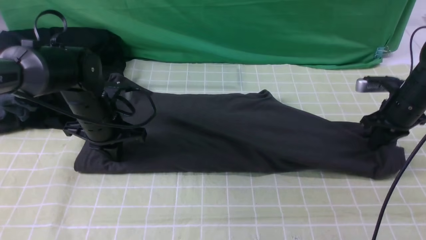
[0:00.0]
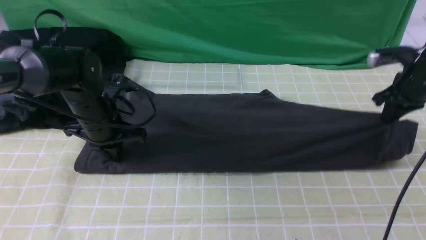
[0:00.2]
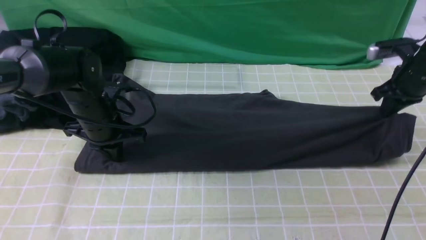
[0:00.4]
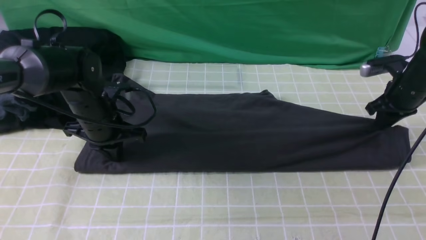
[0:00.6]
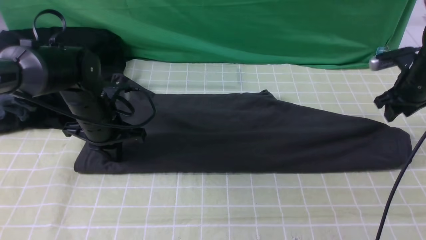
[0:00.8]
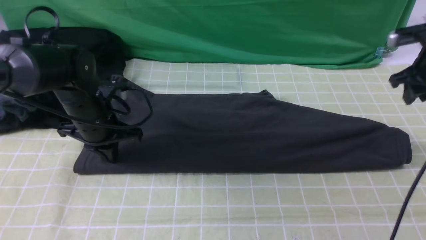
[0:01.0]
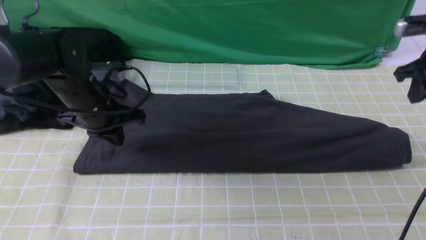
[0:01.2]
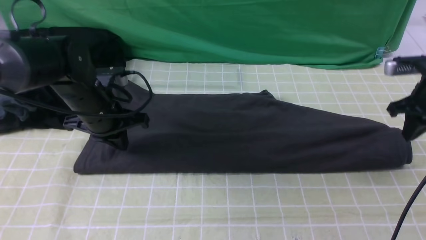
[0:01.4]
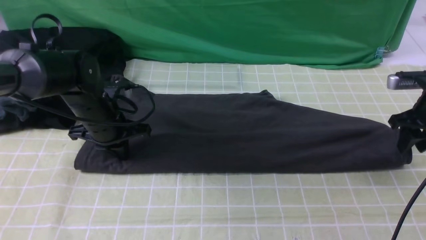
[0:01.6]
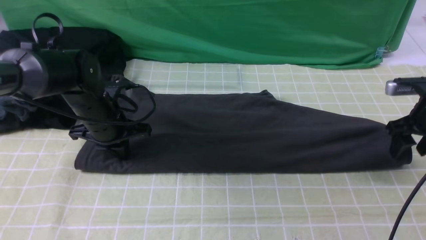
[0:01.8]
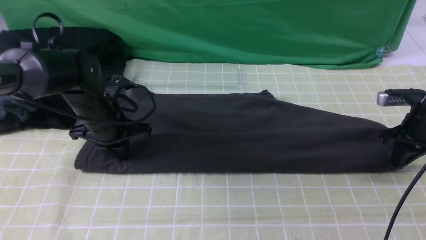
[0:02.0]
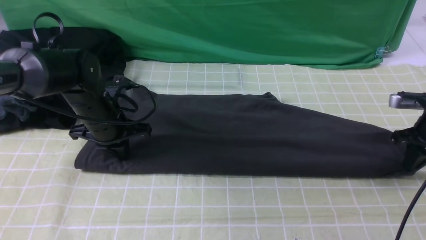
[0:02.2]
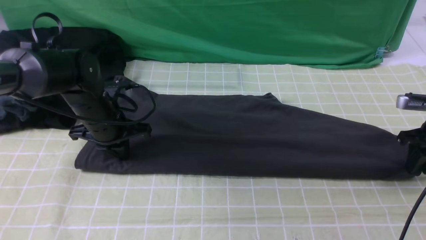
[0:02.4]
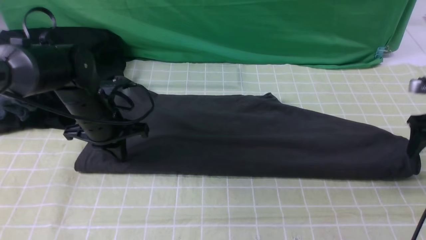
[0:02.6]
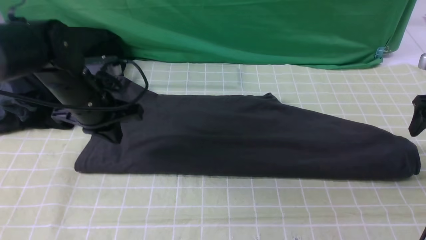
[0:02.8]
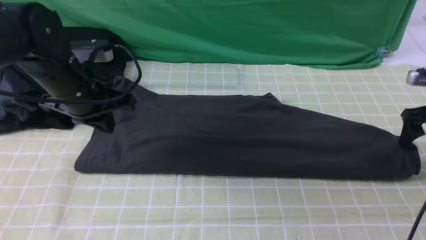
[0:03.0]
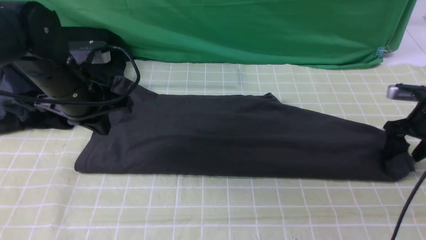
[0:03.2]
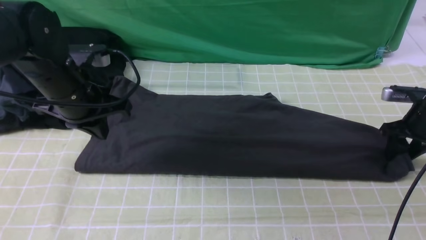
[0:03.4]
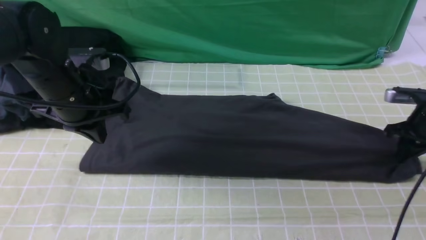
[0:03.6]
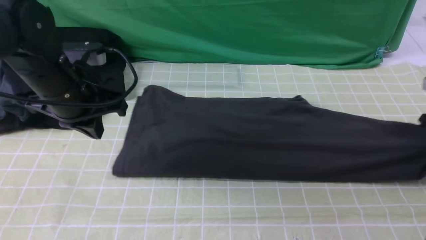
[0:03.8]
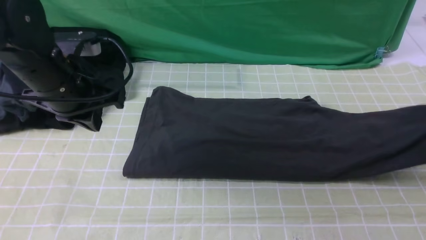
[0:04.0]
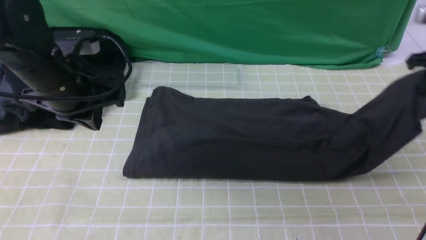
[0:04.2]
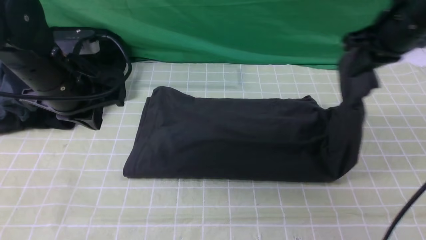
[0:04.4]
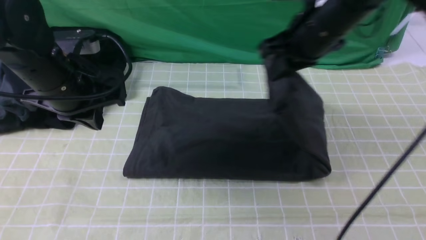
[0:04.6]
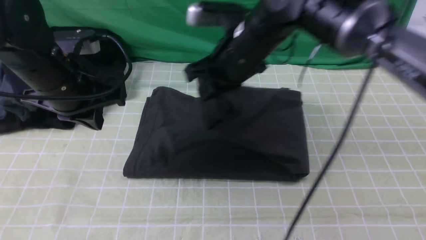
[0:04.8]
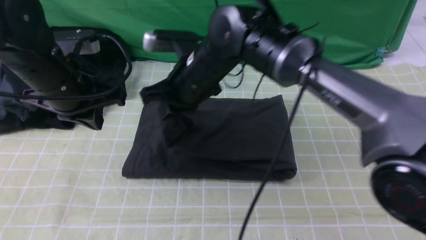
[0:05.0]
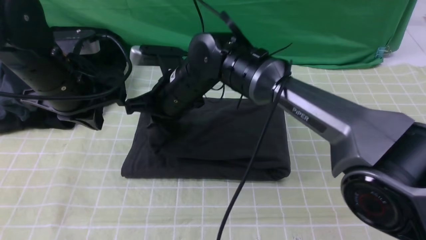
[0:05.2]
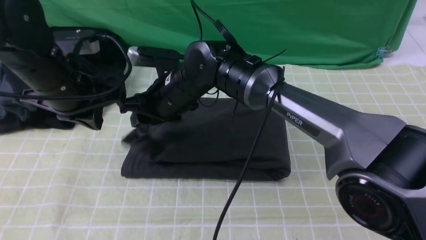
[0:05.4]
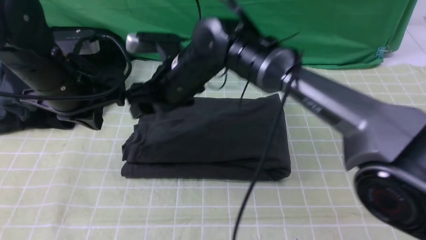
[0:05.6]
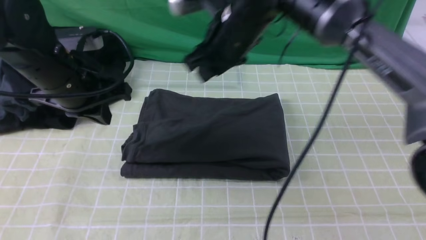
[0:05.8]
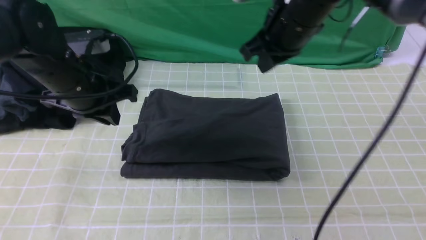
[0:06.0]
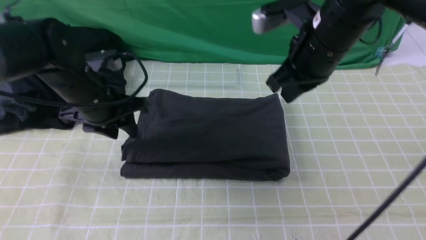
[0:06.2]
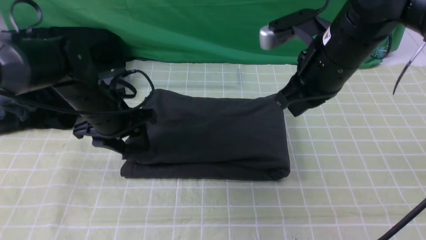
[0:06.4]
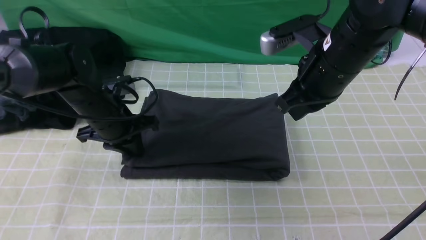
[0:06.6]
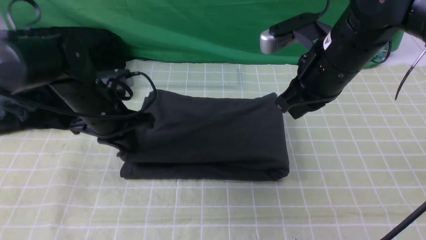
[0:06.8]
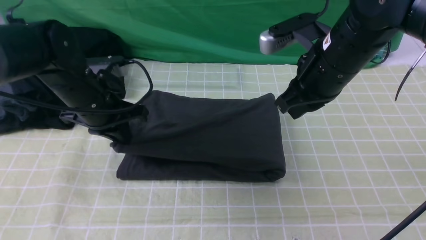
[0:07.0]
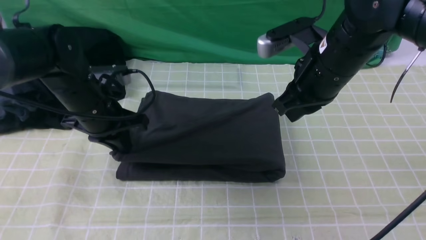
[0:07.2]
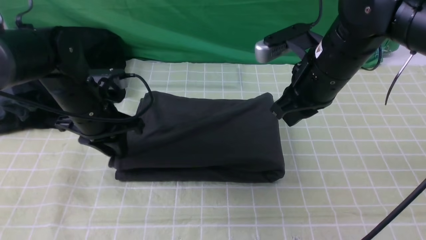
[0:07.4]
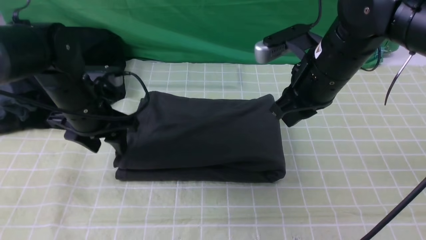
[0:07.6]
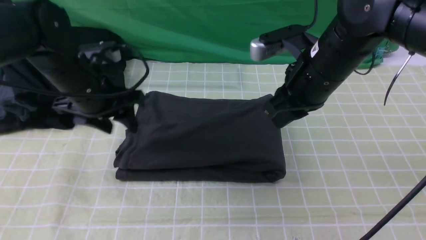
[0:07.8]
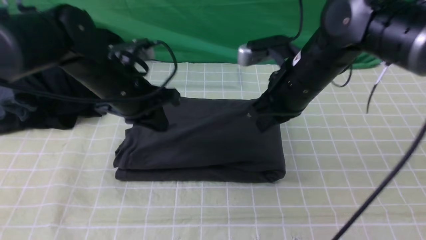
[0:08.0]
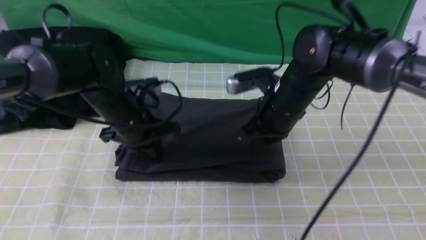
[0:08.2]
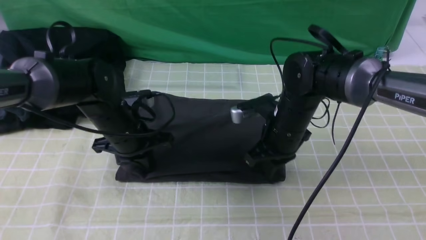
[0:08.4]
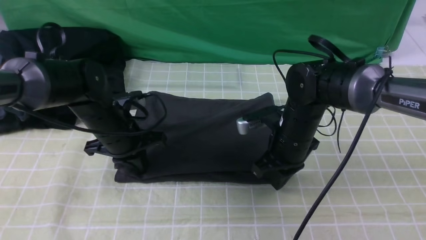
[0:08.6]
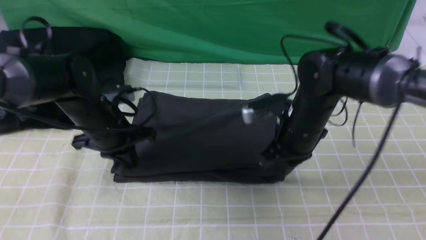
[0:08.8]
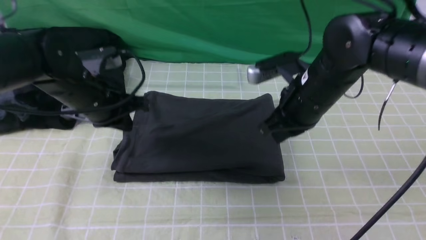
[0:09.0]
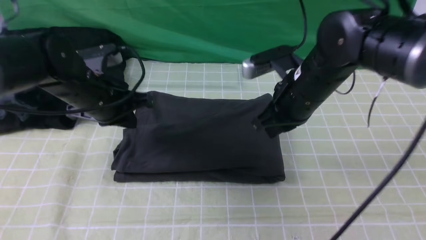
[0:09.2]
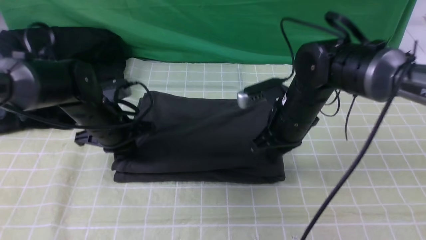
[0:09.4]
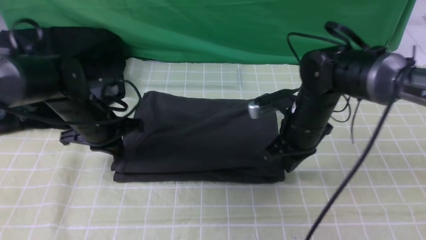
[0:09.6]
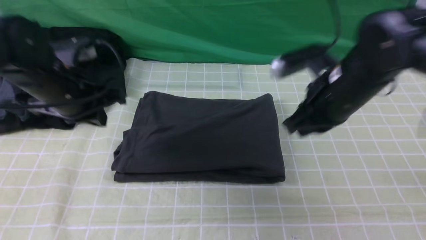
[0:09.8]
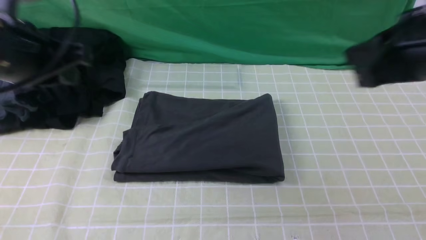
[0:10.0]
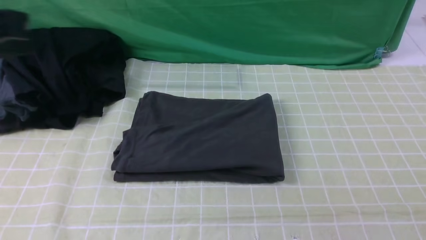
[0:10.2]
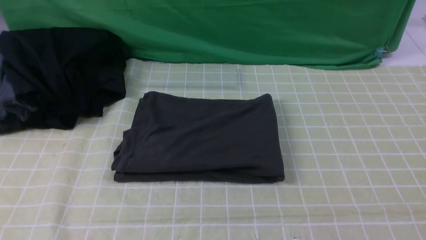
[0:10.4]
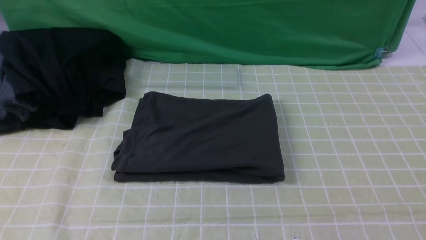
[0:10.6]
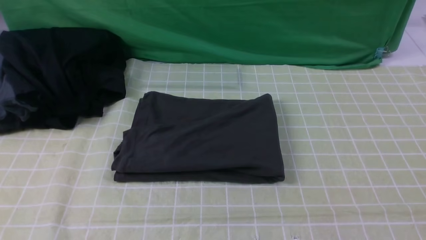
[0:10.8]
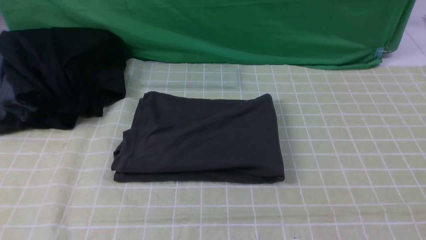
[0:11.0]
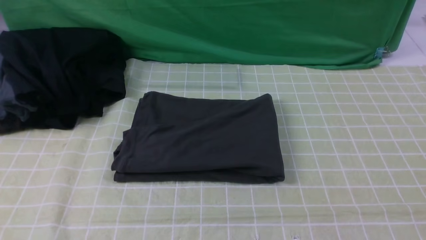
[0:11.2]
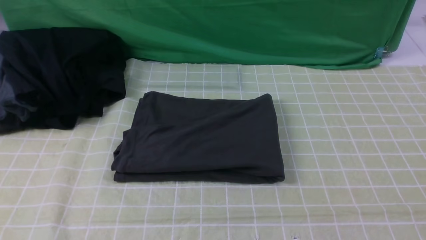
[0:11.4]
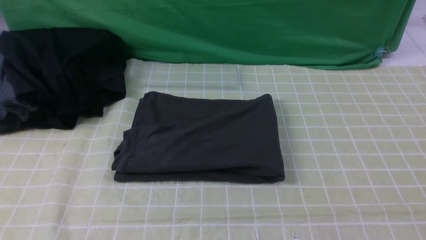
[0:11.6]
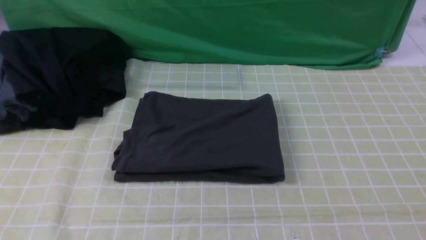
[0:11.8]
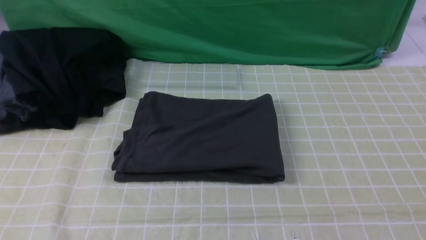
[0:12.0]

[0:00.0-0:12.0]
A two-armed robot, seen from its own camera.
Step, 0:00.0 to 0:03.4: use the right arm to clamp the right edge of the fabric.
Step, 0:03.6 to 0:05.4: use the right arm to drag the right edge of the fabric to the left and folds it over the left edge.
0:00.0 to 0:01.6: The right gripper opens.
0:01.6 to 0:03.0: The right gripper opens up, while the left gripper travels upward by approximately 10 cm.
0:03.0 to 0:04.4: The right gripper shifts approximately 25 cm to the left and upward, and closes.
0:04.4 to 0:06.0: The right gripper moves to the left, approximately 15 cm, and opens, then closes again.
0:06.0 to 0:07.6: The right gripper ends up approximately 5 cm from where it was. The left gripper opens its fingers.
0:07.6 to 0:09.0: The right gripper is displaced downward by approximately 5 cm, while the left gripper reaches about 5 cm downward, then returns, and closes its fingers.
0:09.0 to 0:10.4: The left gripper heads backward and upward, covering some 35 cm. The right gripper moves backward, to the right and upward, approximately 35 cm.

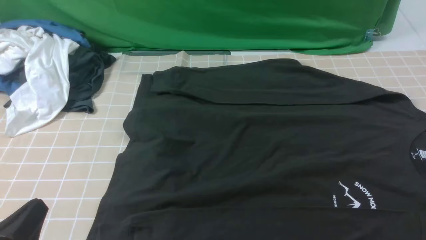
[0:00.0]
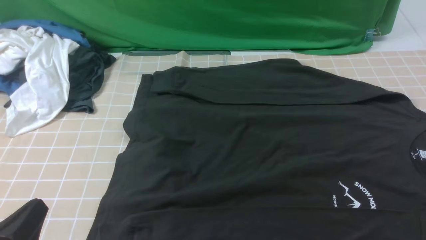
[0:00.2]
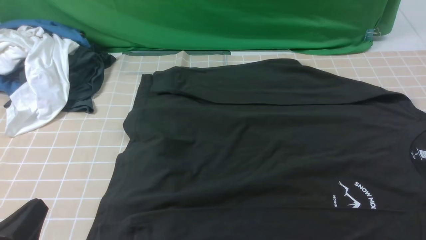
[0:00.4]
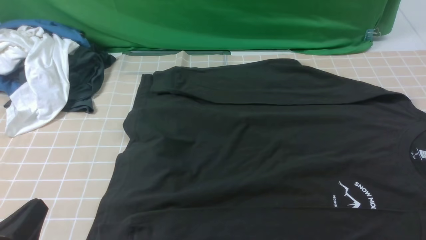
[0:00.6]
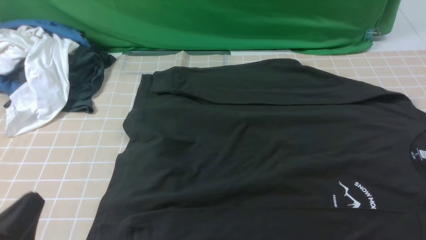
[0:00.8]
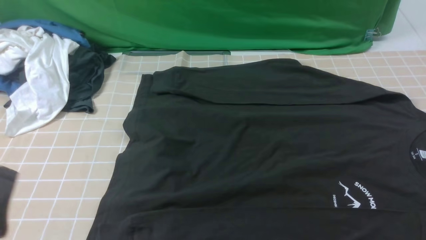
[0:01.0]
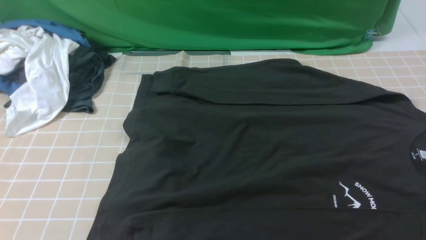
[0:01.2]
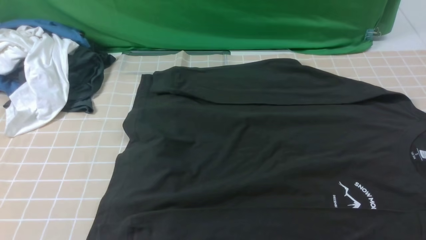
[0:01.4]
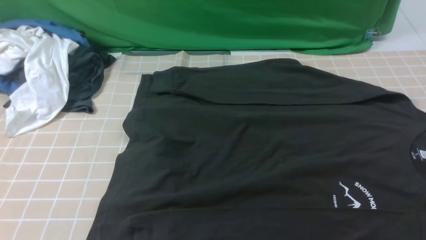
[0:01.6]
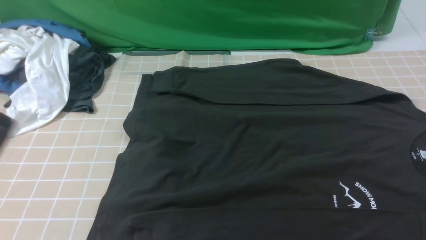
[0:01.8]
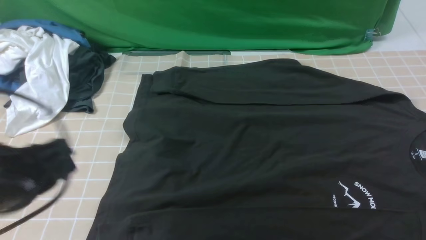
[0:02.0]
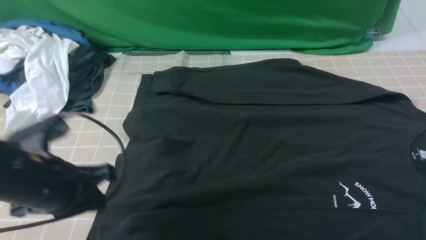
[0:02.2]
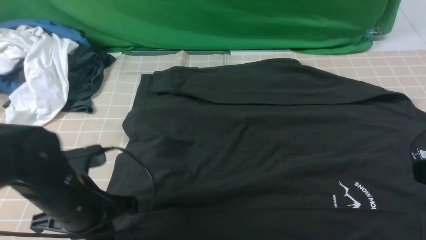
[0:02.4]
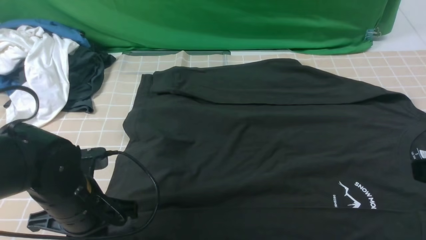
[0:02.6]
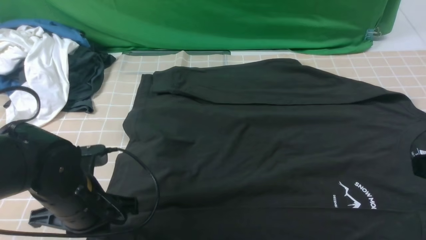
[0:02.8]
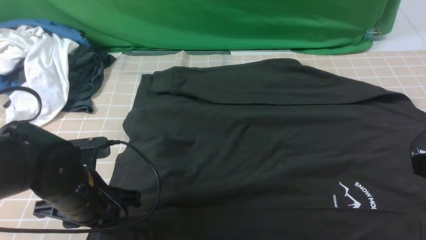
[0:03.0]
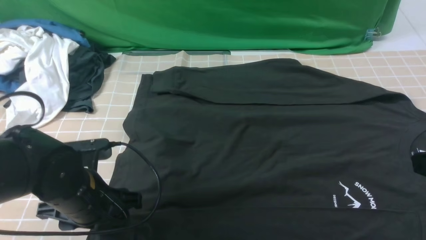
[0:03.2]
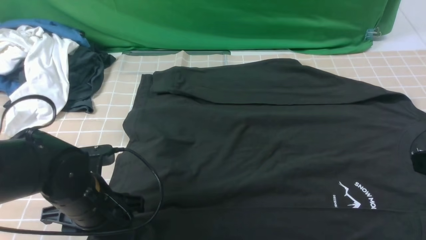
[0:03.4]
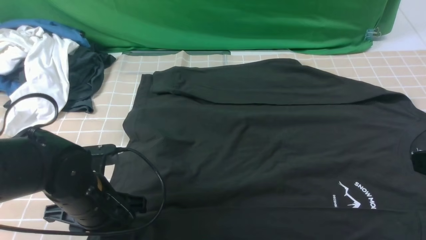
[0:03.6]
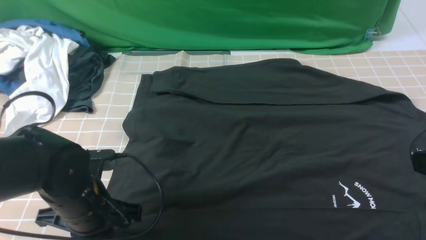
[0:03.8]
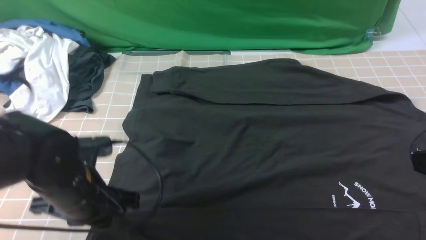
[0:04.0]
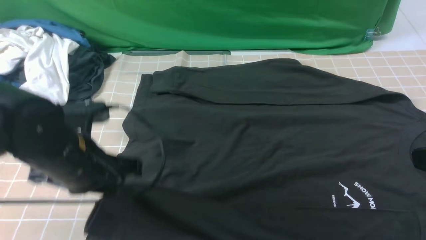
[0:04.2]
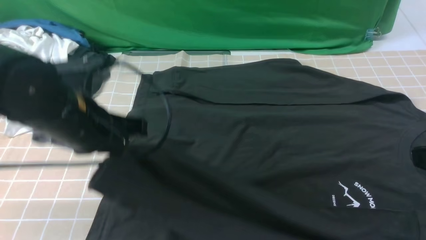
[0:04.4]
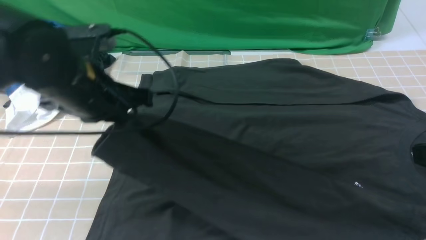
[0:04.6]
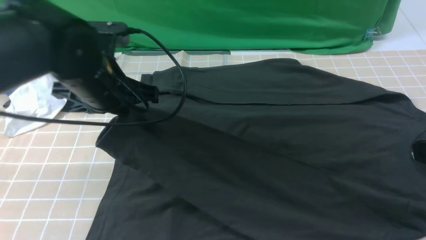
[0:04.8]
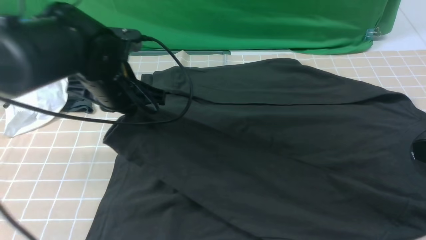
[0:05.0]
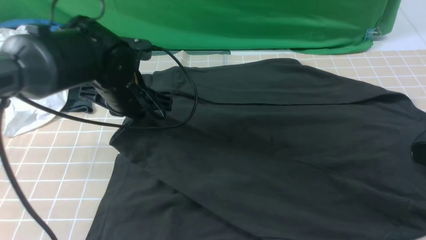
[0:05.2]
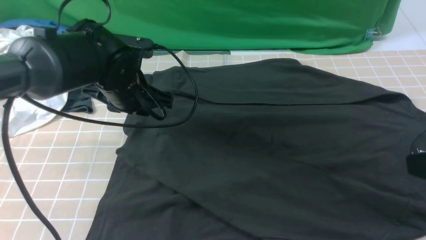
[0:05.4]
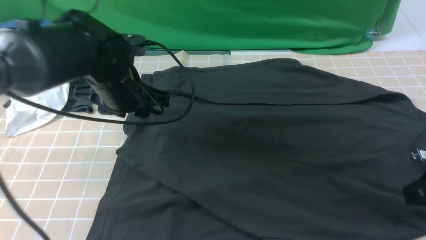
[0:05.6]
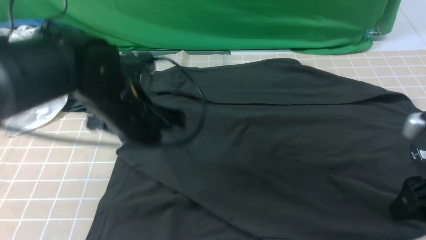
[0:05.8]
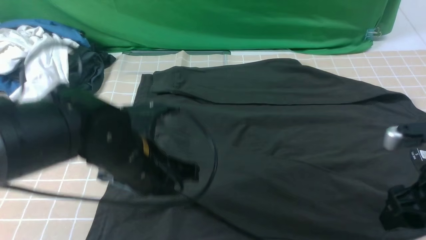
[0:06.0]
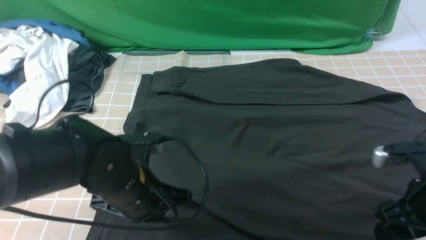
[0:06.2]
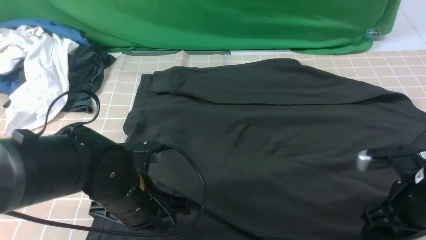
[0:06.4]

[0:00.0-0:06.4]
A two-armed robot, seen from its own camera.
Step, 0:00.0 to 0:03.6: use the left arm to clamp the cuff closest to it.
Step, 0:03.8 to 0:05.2: use the left arm to drag and place the cuff at the centered position on the left edge of the fabric.
0:00.0 to 0:01.6: The left gripper is displaced upward by approximately 10 cm.
0:01.6 to 0:03.2: The left gripper is displaced forward, downward and to the right by approximately 20 cm, and opens.
0:03.2 to 0:04.8: The left gripper travels upward and forward by roughly 15 cm, and closes up.
0:04.8 to 0:06.4: The left gripper shifts roughly 15 cm downward and backward, and opens, then closes again; the right gripper heads downward and forward, covering some 15 cm, and opens.
